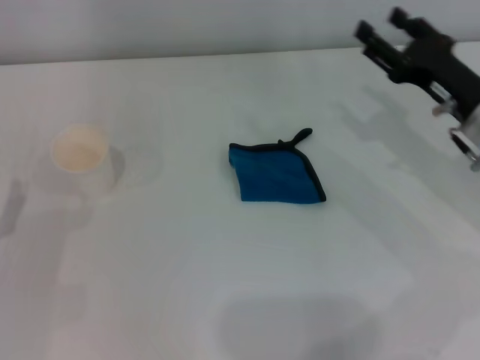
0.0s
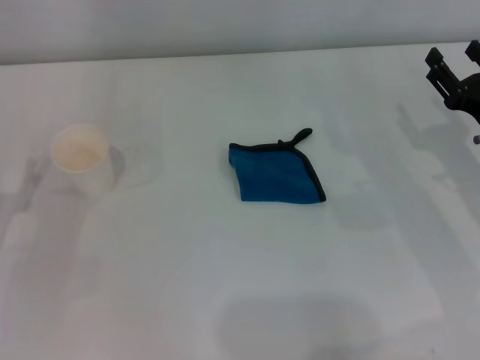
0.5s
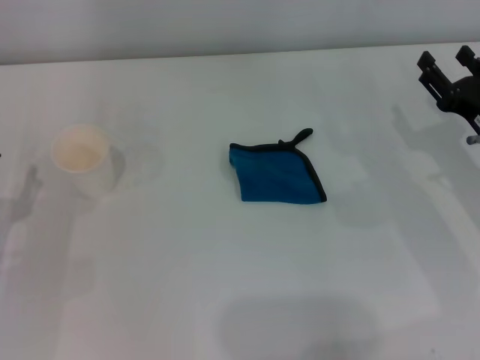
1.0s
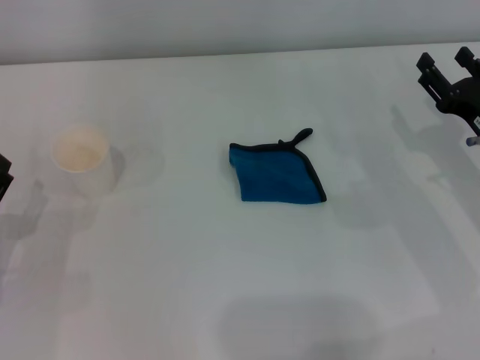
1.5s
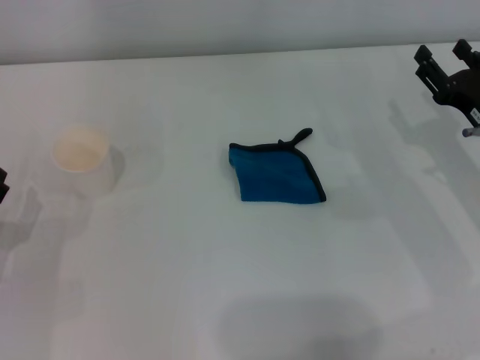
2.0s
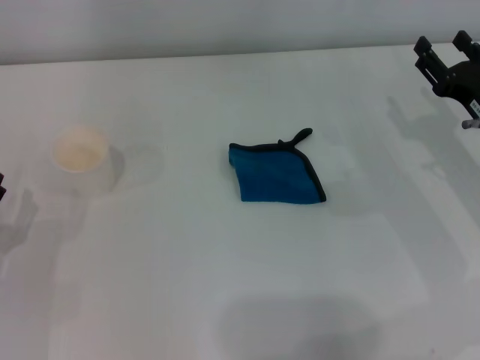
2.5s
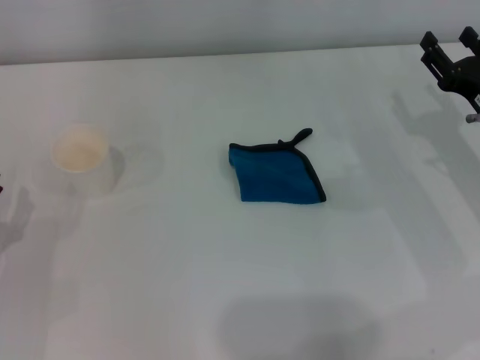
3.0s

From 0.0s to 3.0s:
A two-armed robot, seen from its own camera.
From 0.0s to 3.0s: The grippers make only small movements.

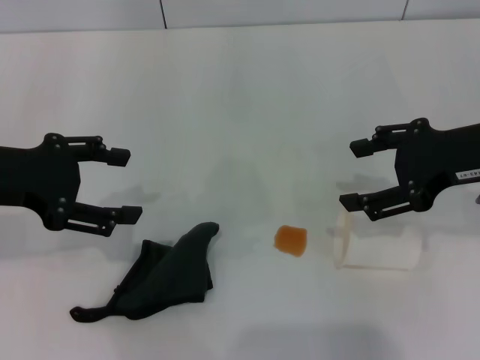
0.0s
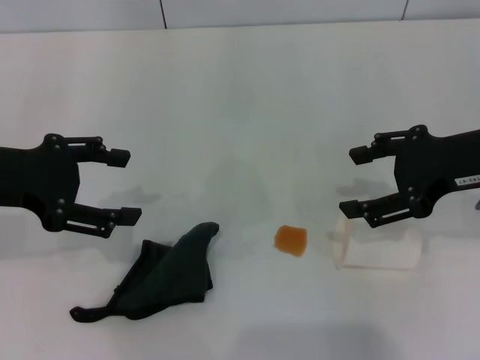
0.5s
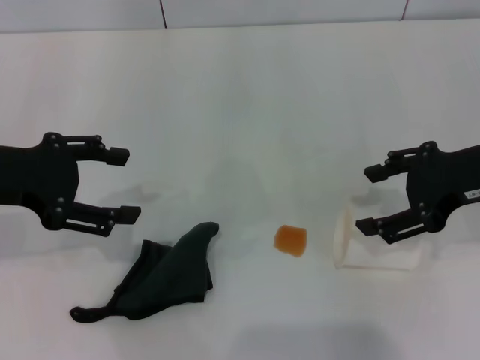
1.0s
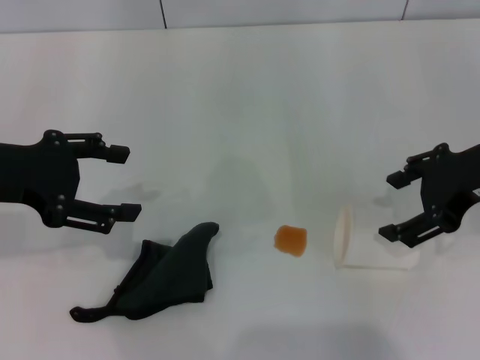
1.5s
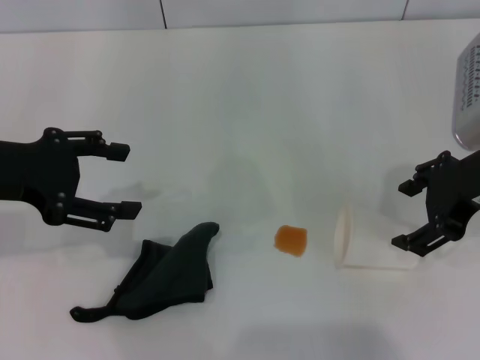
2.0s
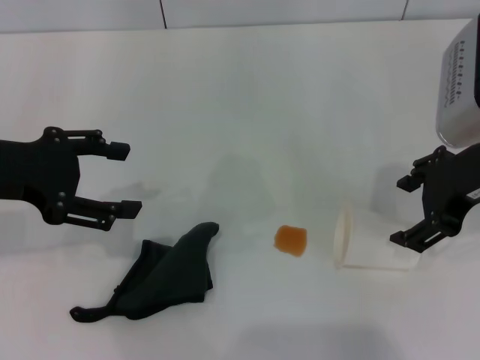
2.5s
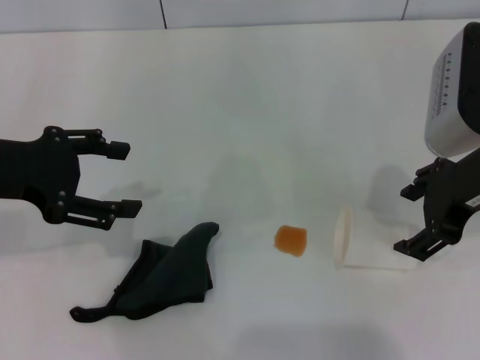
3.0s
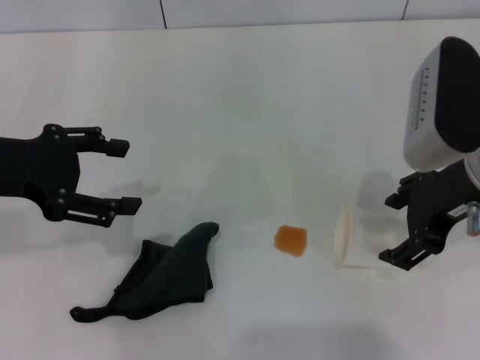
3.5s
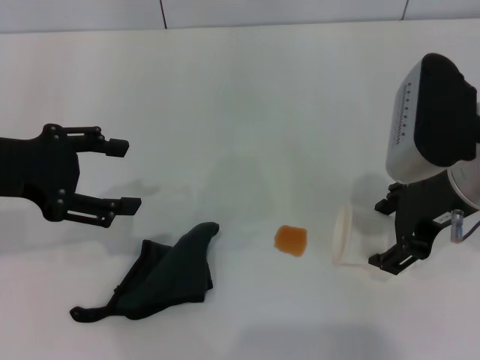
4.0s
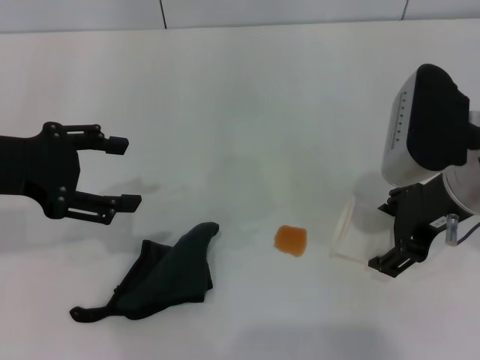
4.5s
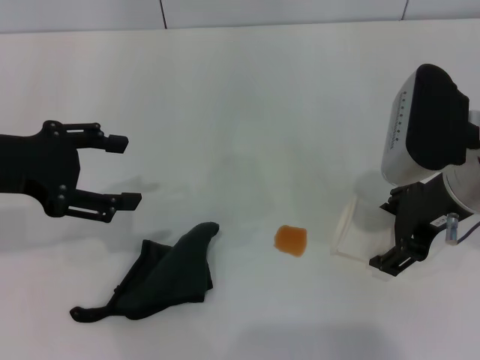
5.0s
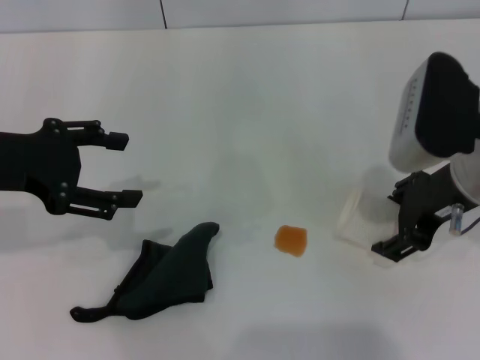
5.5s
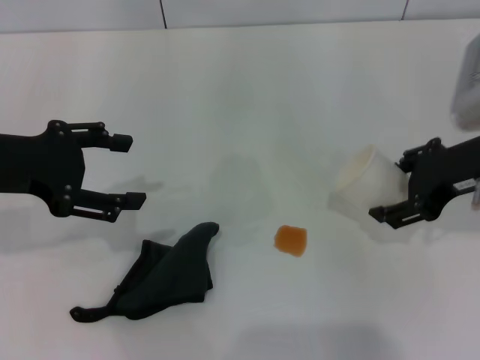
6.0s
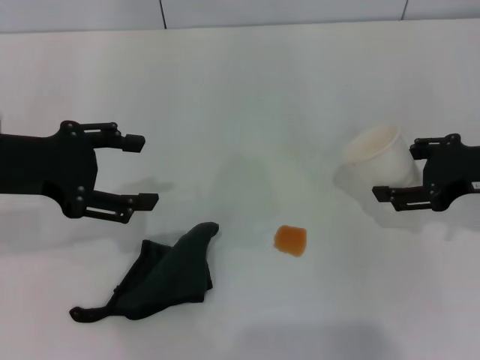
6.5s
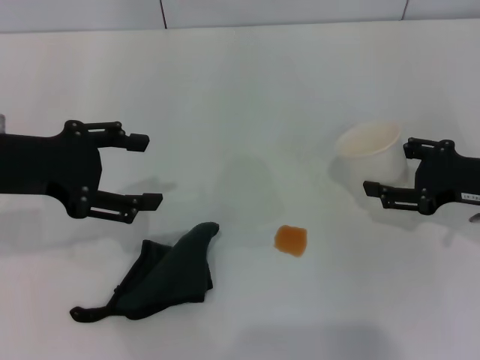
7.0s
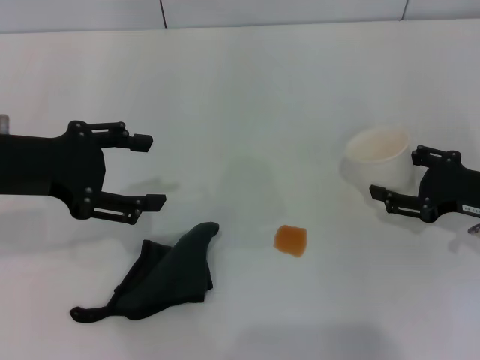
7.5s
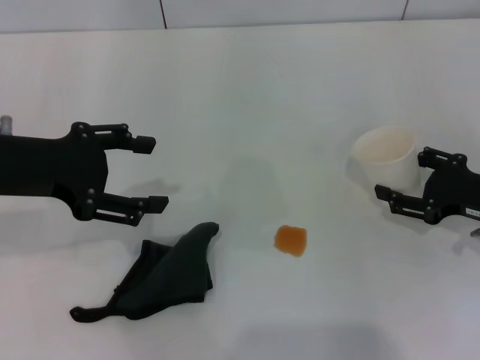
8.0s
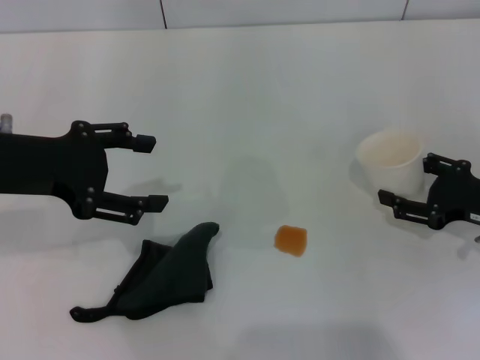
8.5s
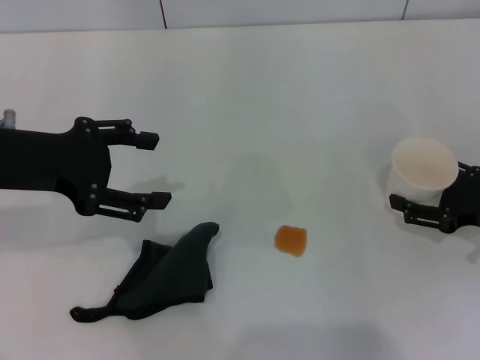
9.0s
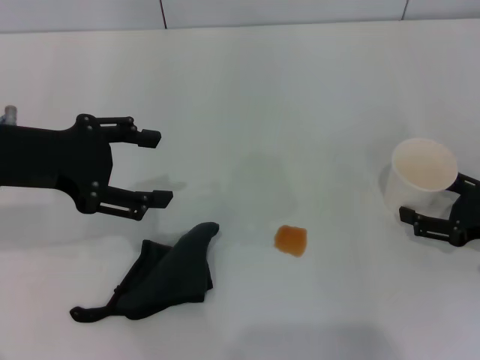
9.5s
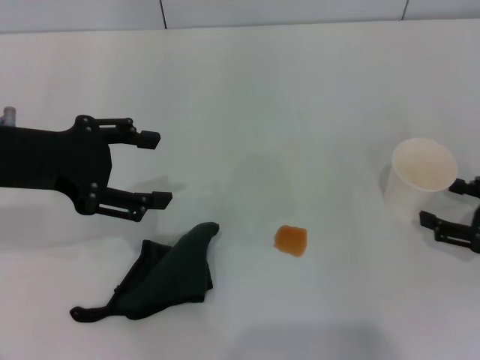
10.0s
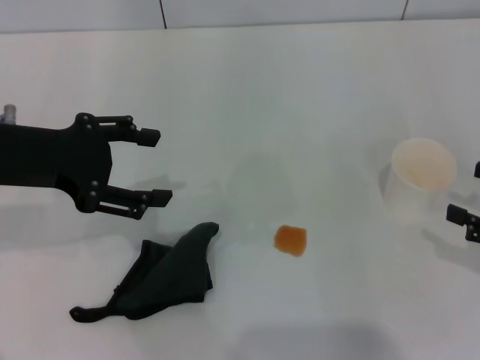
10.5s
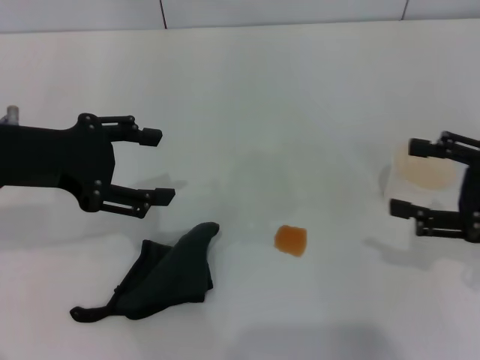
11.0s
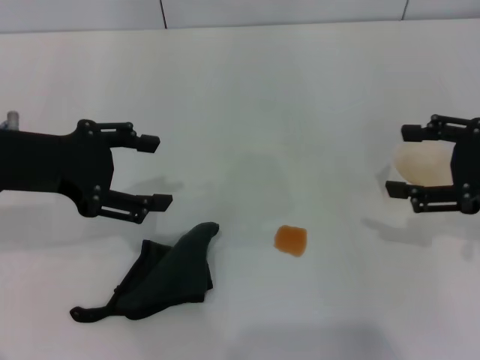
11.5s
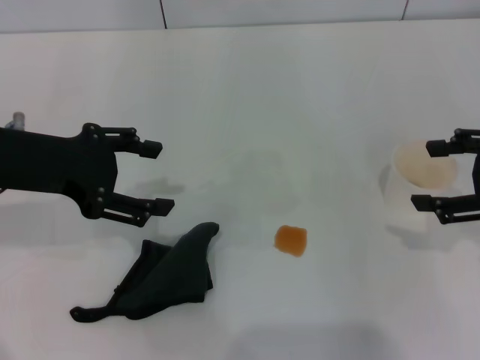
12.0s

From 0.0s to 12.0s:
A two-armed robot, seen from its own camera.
Step, from 0.0s to 5.0s: Grasp the paper cup with the right gripper.
Step, from 5.5s to 10.0s: Stand the paper cup upright with the right gripper.
From 2.0s to 6.0s: There are only small adjustments of the grippers.
From 6.0s to 8.0s: The right gripper moves downward and to the right, approximately 15 cm.
From 8.0s to 10.0s: The right gripper shifts by approximately 5 cm.
From 10.0s to 12.0s: The right gripper travels upward by approximately 15 cm.

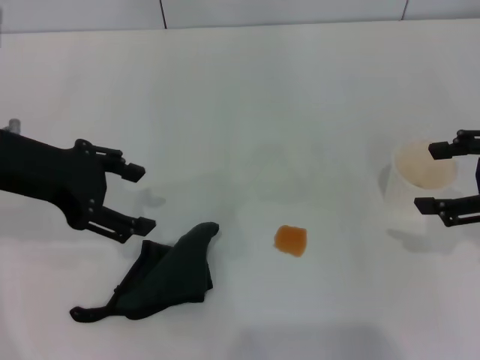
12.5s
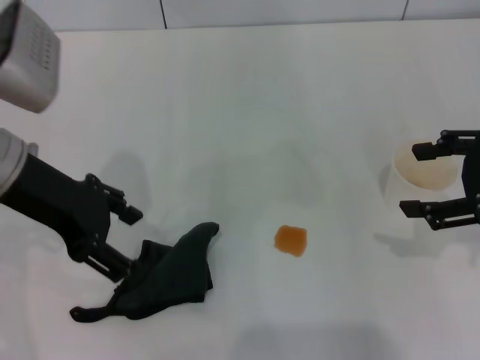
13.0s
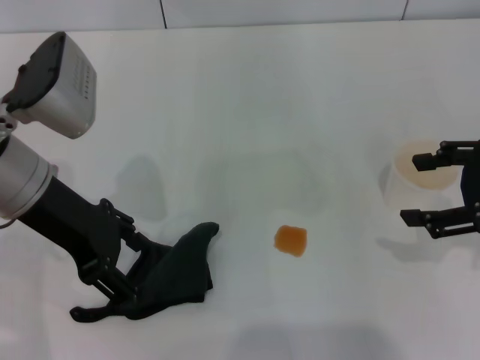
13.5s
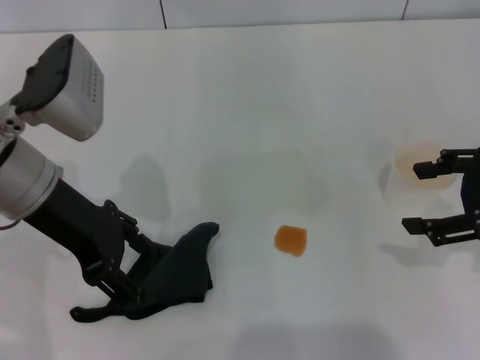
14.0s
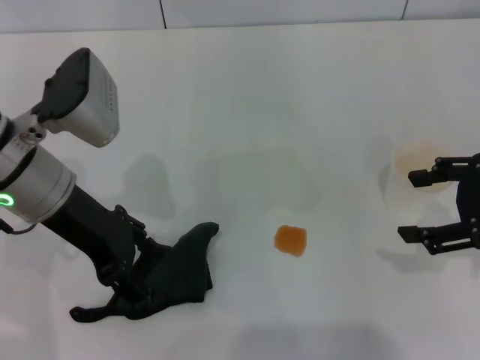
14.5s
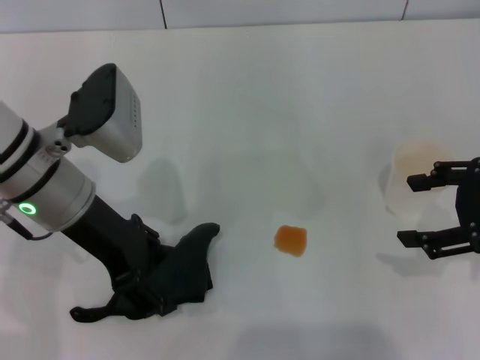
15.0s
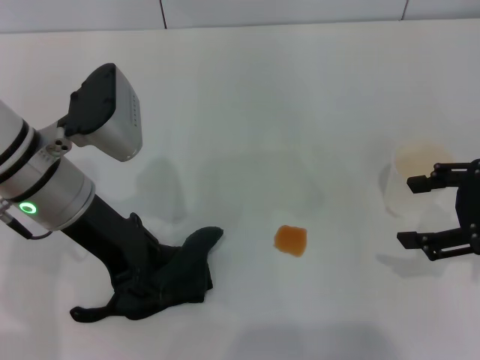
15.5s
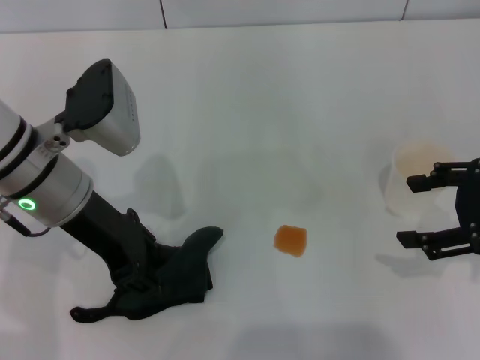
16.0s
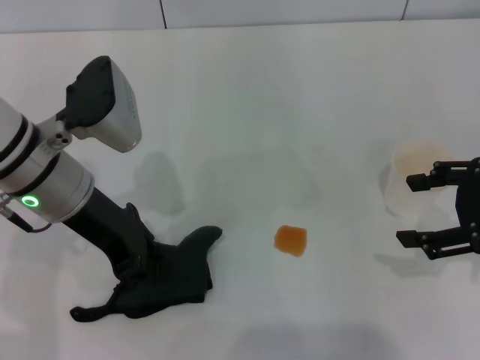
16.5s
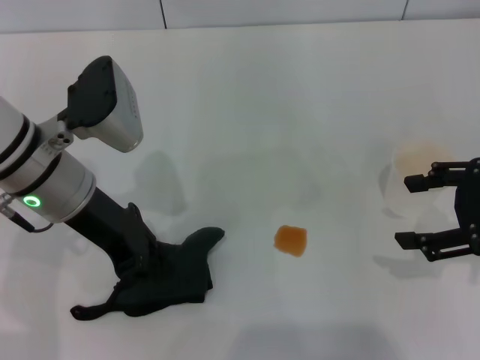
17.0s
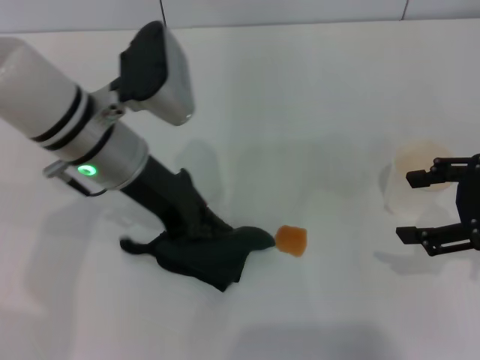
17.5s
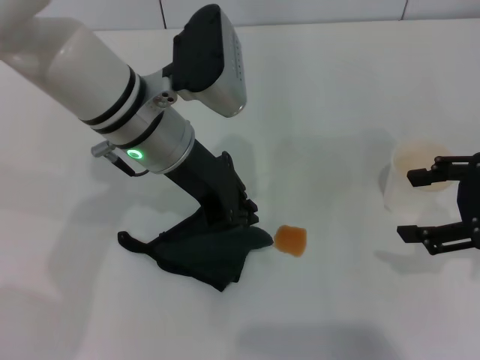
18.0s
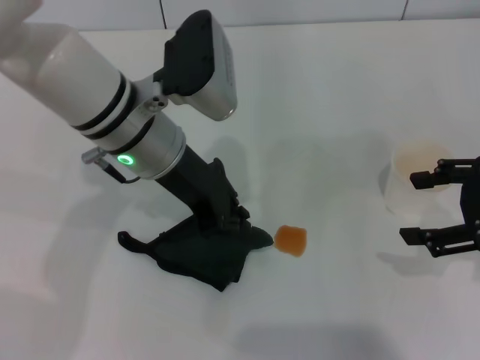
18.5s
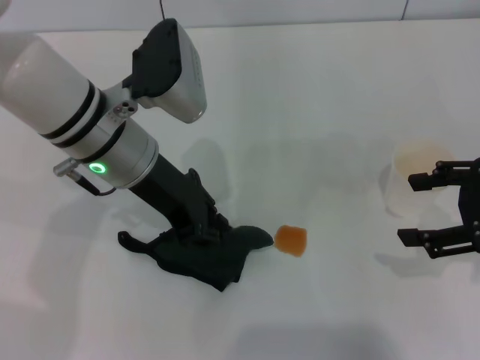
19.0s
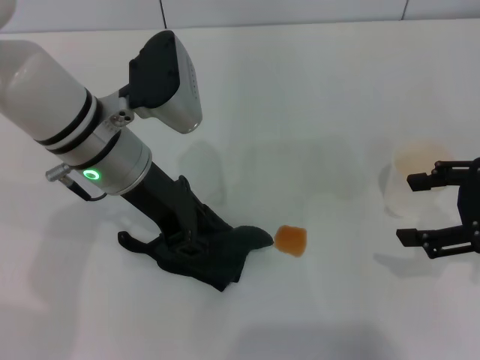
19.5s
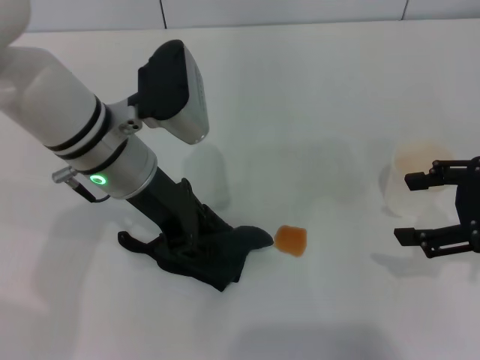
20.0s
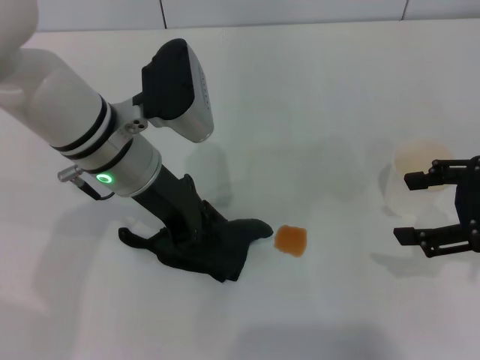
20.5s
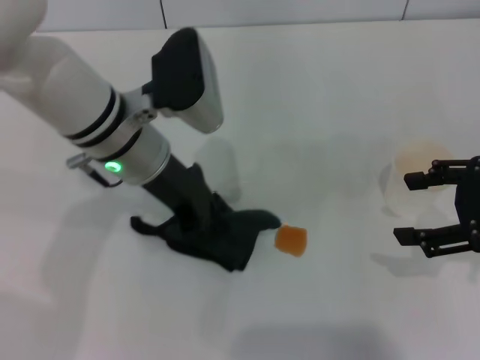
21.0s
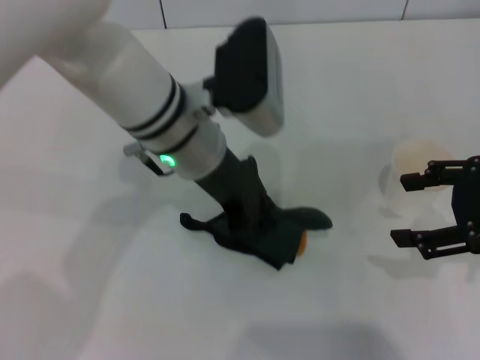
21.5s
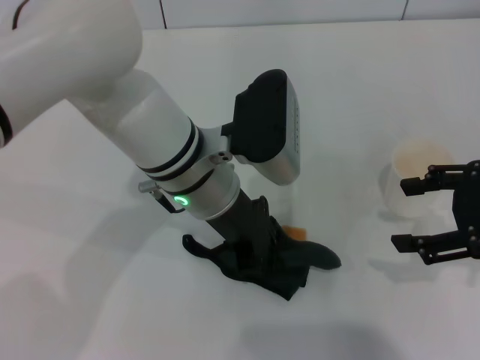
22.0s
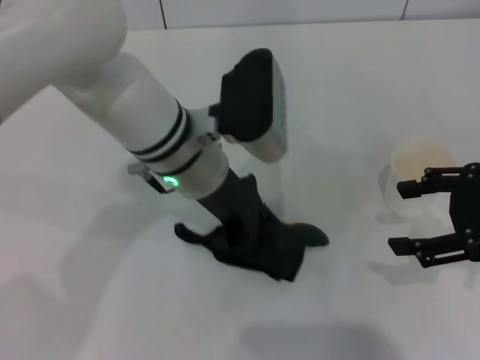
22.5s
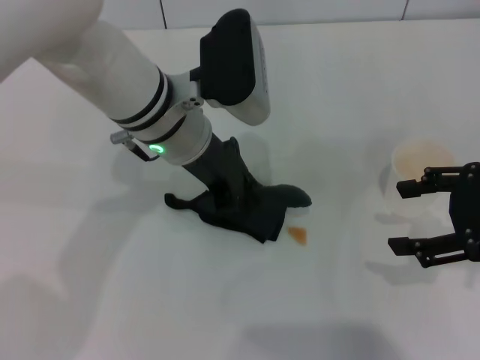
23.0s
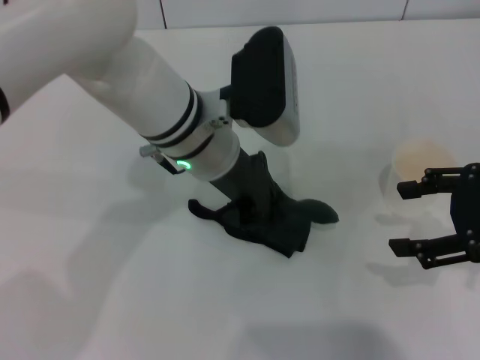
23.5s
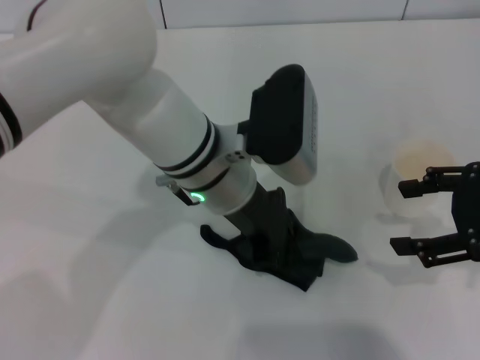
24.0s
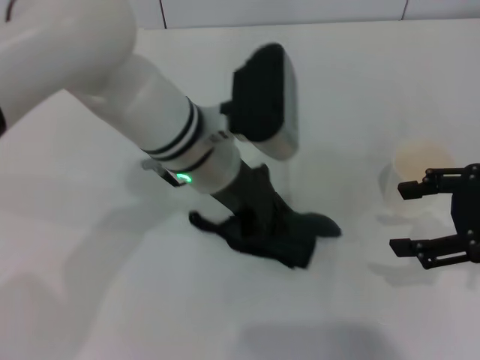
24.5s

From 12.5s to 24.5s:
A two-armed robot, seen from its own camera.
Step, from 12.5s to 16.5s: Grasp the rag with the left gripper.
From 12.5s to 14.5s: The left gripper is displaced to the right by roughly 5 cm.
From 14.5s to 16.5s: The left gripper closes.
From 16.5s to 18.5s: The left gripper is displaced to the right by some 10 cm.
From 18.5s to 20.5s: There are only small adjustments of the grippers.
From 20.5s to 22.5s: The left gripper heads to the right, covering roughly 5 cm.
From 22.5s to 24.5s: The grippers move only a little.
